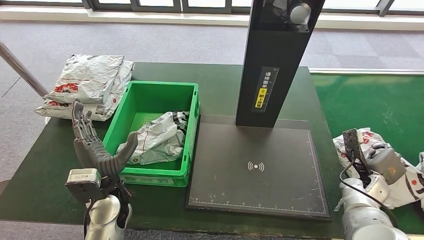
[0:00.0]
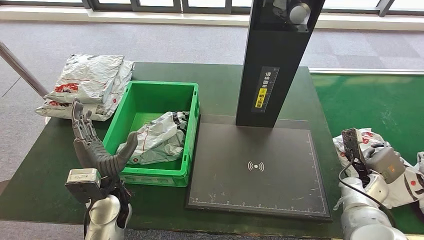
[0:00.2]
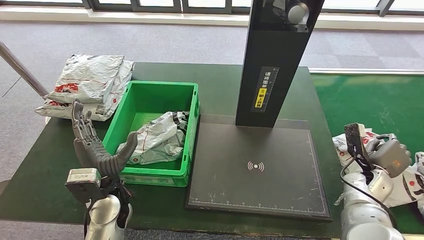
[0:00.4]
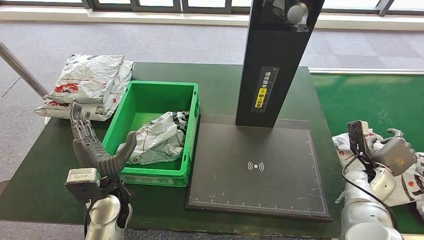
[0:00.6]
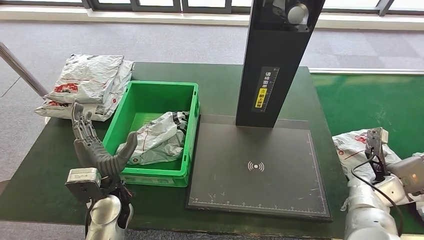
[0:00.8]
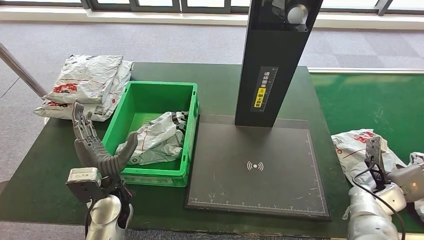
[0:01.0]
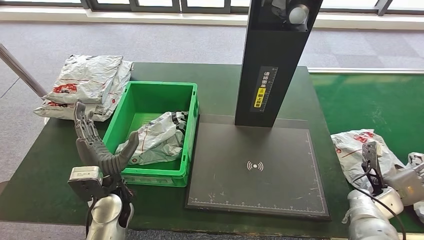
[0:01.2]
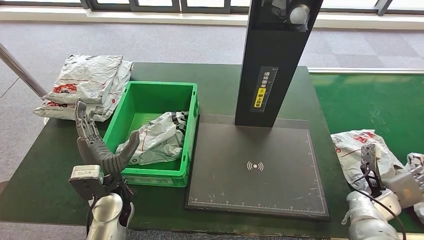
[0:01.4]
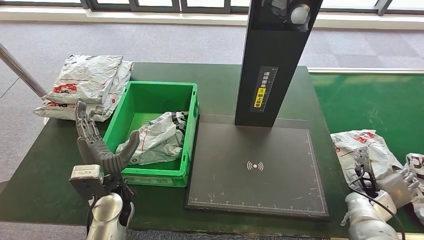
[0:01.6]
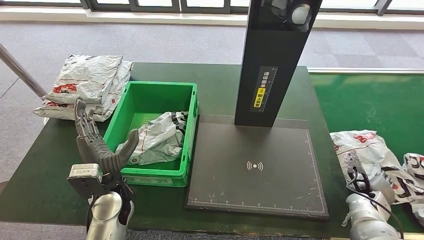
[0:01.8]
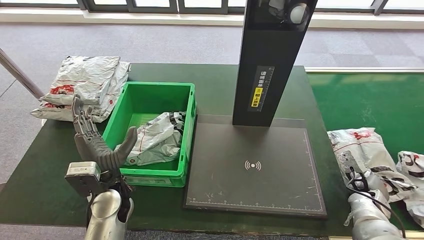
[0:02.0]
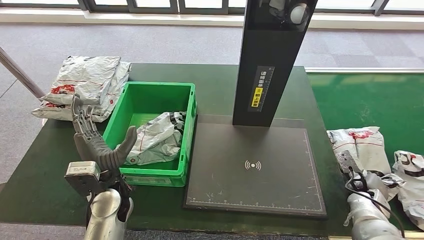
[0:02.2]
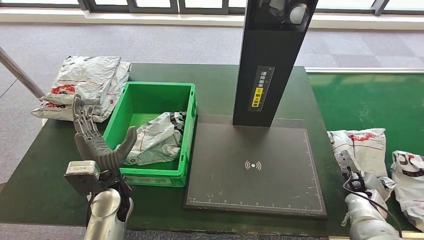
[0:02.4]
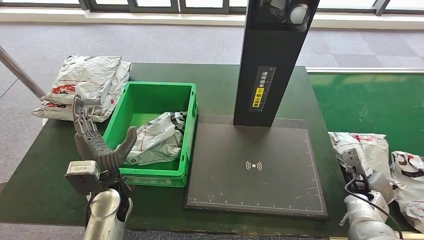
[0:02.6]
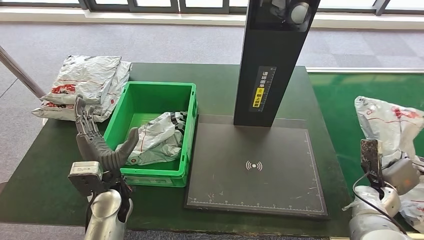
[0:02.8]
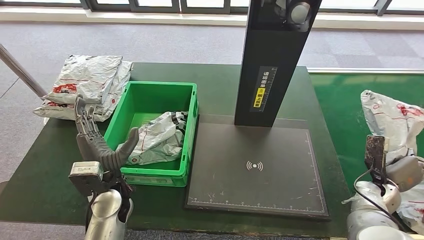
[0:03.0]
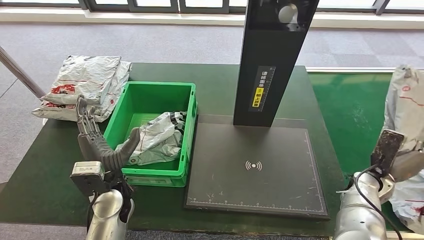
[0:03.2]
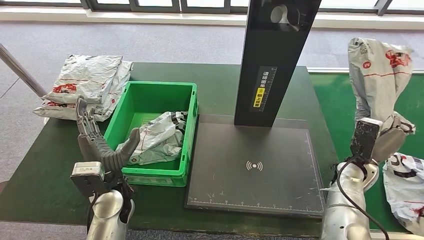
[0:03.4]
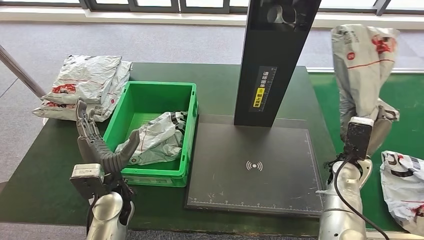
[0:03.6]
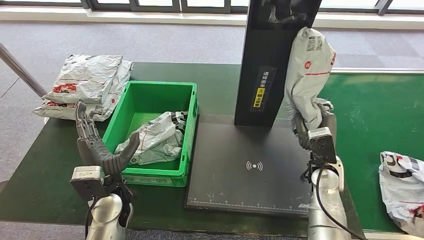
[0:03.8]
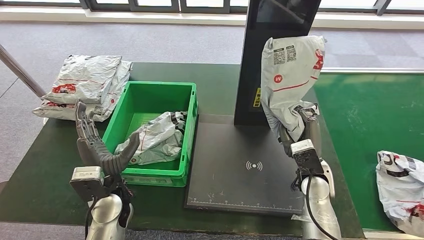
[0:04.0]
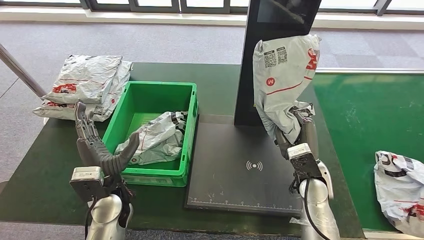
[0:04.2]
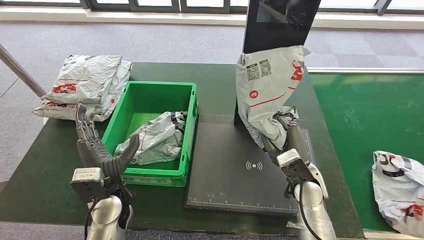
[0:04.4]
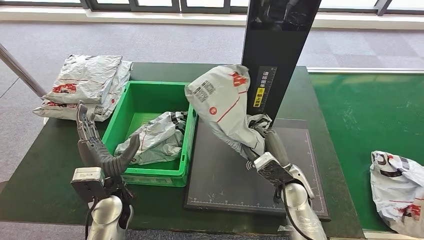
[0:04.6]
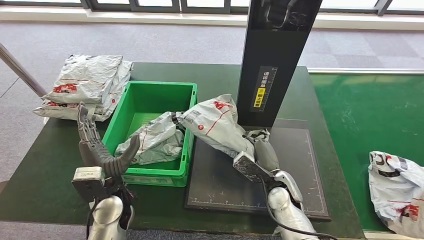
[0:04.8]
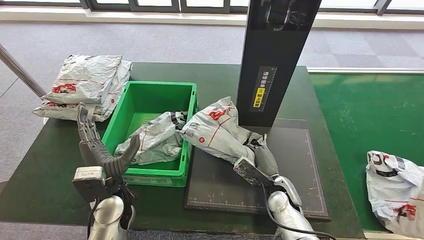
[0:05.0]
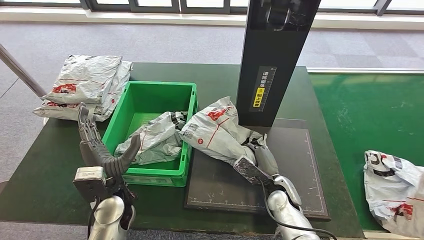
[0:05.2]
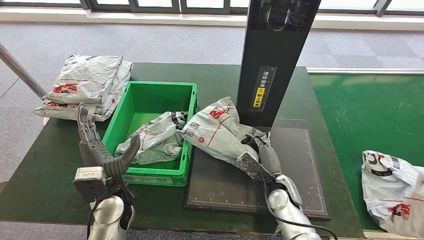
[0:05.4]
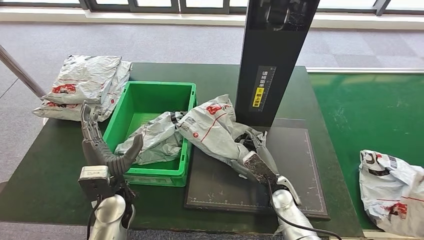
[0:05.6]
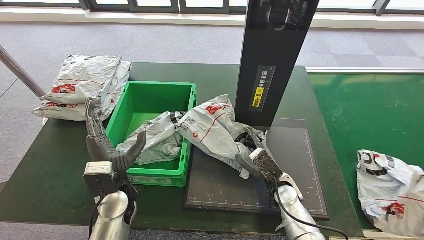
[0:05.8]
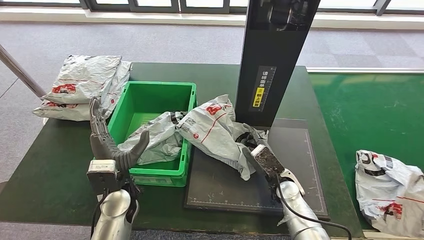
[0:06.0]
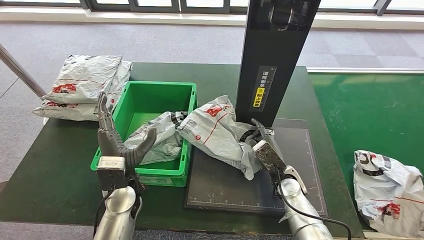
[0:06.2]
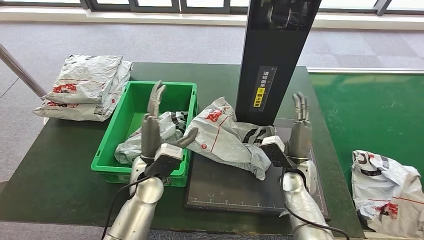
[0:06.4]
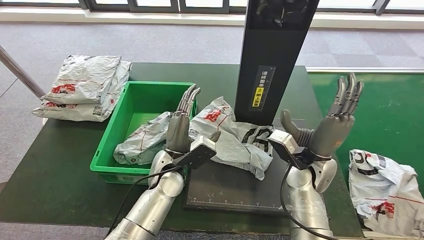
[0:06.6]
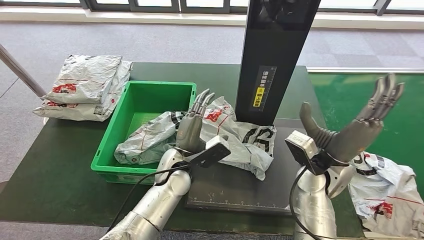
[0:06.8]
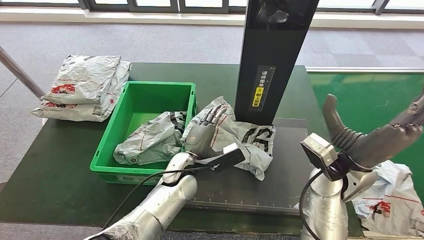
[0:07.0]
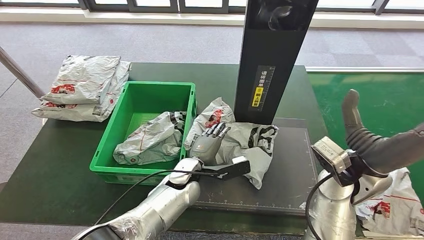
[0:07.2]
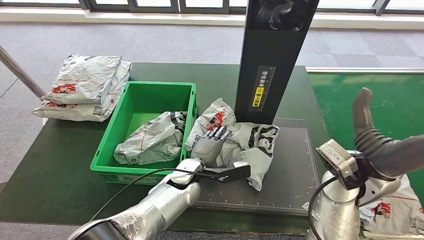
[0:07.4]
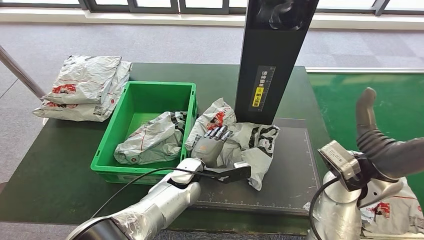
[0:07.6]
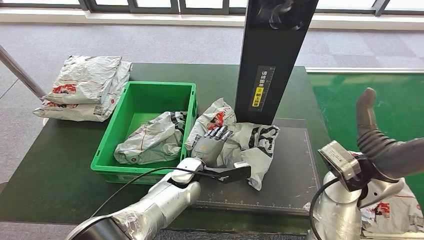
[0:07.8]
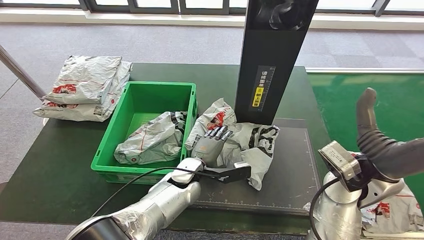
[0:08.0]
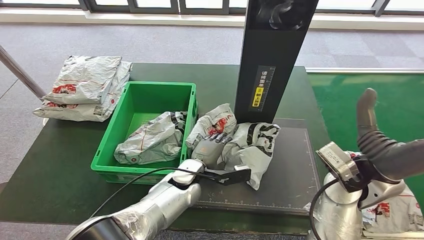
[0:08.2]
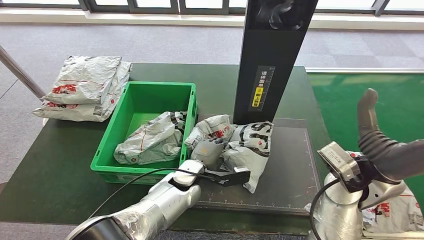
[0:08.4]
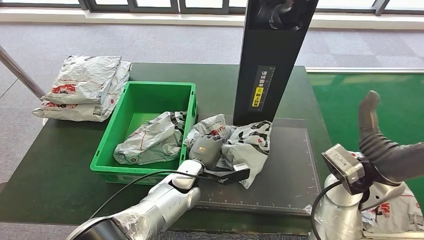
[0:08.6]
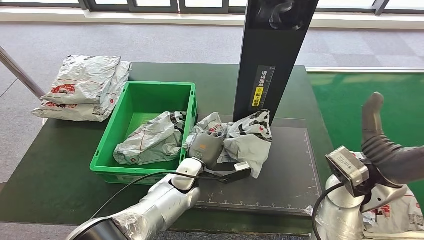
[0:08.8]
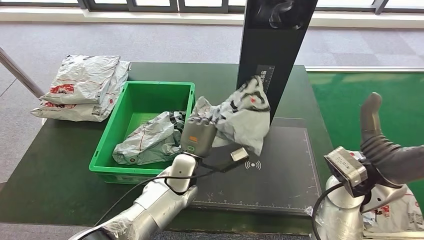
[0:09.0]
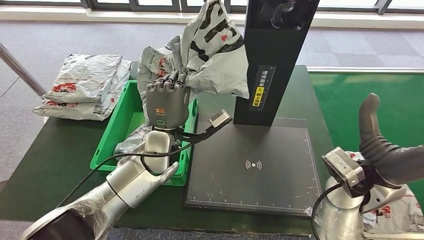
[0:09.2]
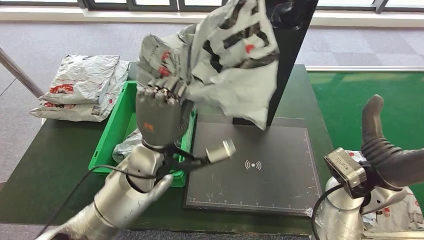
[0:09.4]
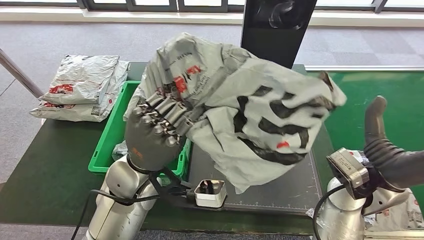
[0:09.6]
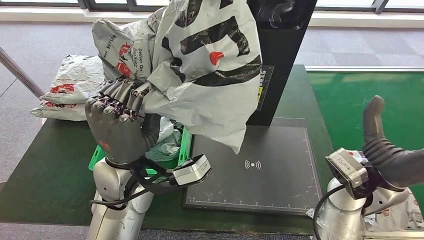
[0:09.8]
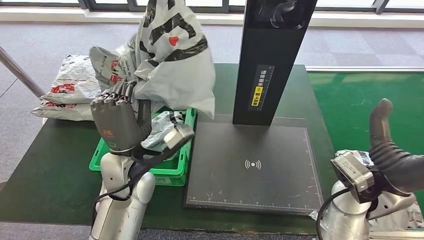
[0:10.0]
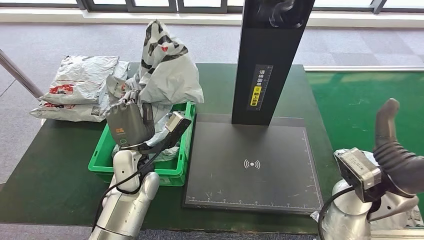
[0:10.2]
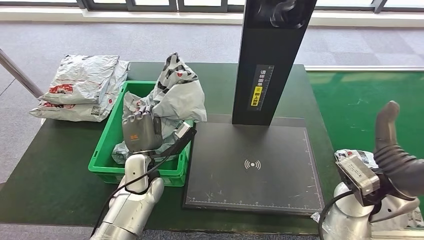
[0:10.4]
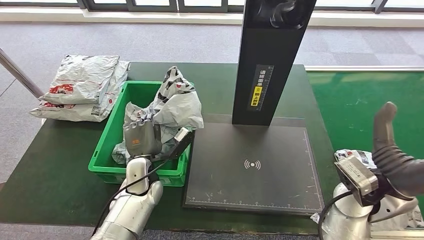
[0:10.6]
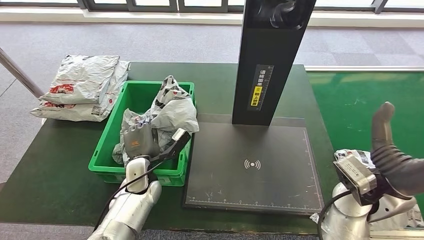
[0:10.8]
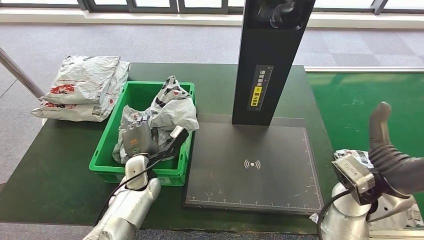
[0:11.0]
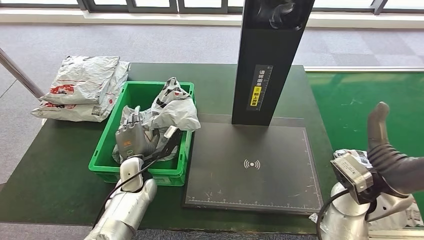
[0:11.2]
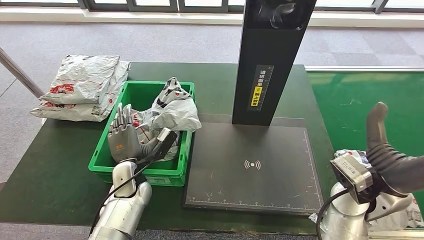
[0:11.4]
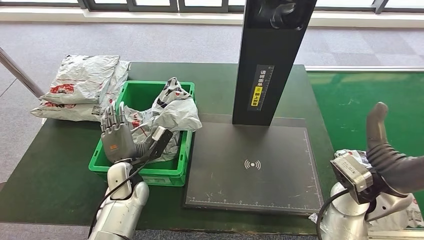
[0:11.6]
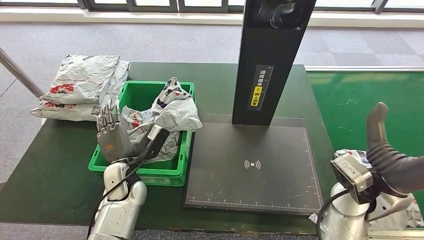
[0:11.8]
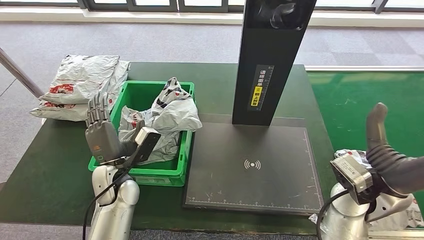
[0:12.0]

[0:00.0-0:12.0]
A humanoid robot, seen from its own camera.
Step, 0:00.0 to 0:03.2: Pick up the parcel from the conveyor belt.
Step, 0:03.4 to 0:06.0: Place the parcel onto the inbound machine.
Step, 0:06.2 to 0:09.4: Pick up the parcel from the inbound machine.
0:00.0 to 0:01.6: The hands move only a little.
0:10.4 to 0:12.0: The left hand heads to the left, covering about 5 cm.

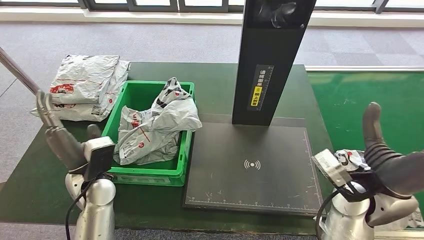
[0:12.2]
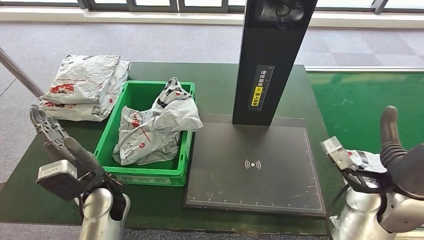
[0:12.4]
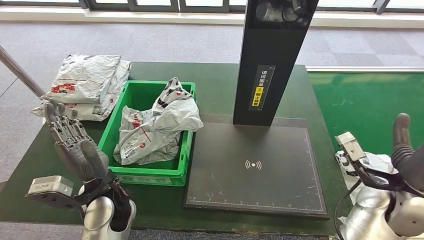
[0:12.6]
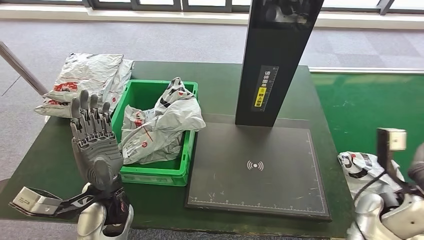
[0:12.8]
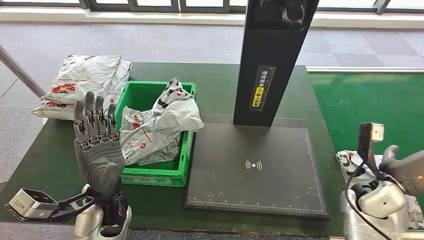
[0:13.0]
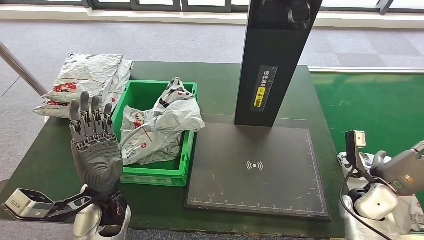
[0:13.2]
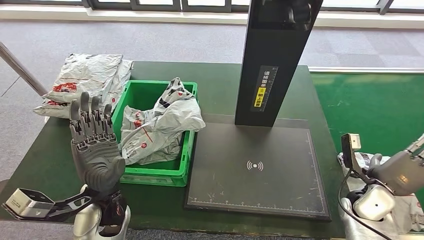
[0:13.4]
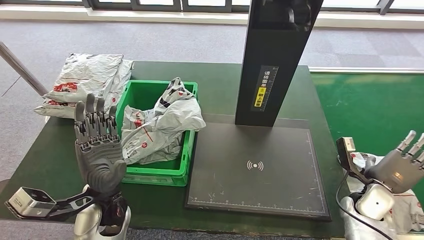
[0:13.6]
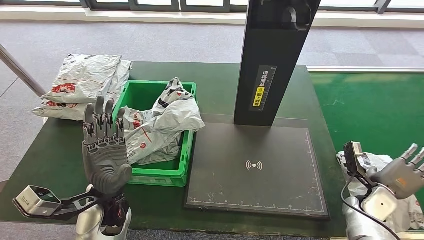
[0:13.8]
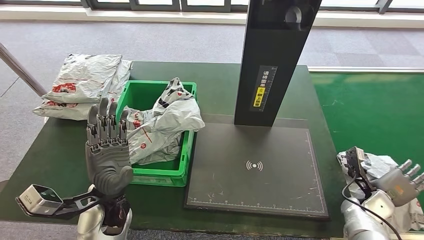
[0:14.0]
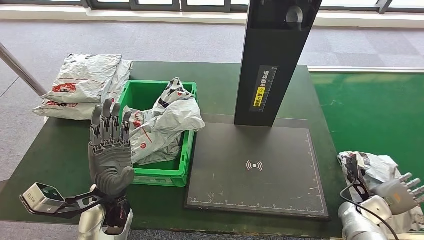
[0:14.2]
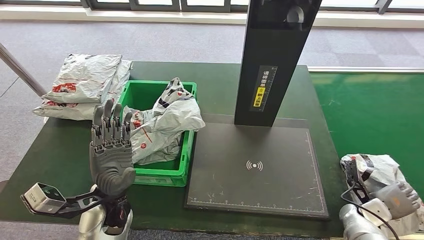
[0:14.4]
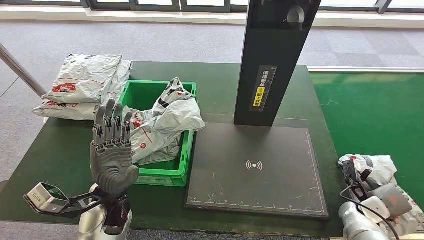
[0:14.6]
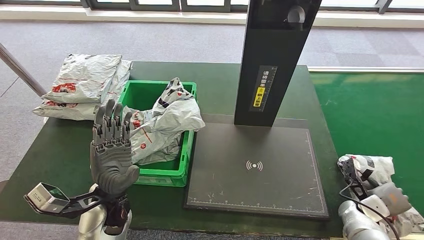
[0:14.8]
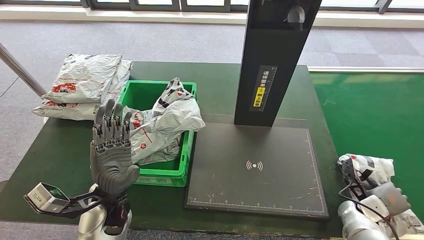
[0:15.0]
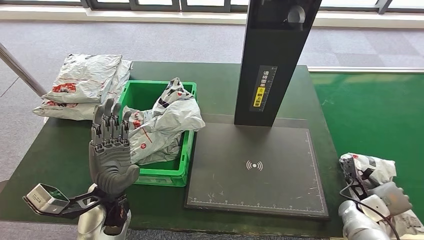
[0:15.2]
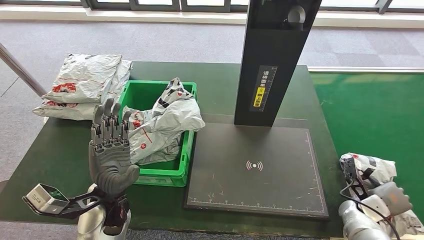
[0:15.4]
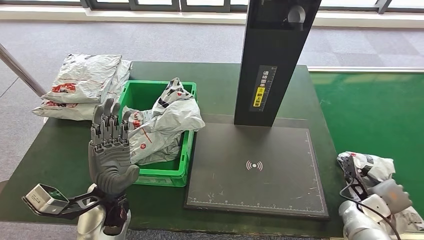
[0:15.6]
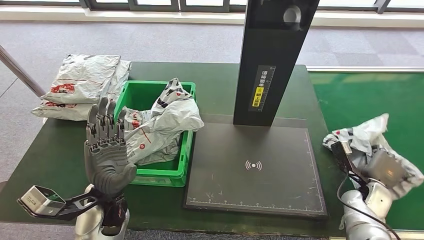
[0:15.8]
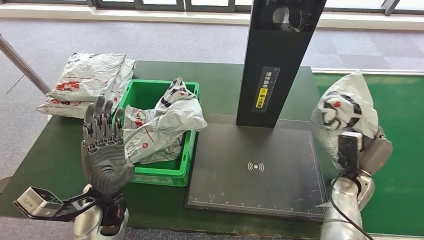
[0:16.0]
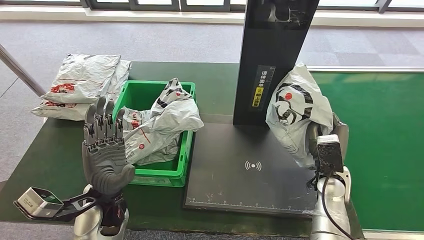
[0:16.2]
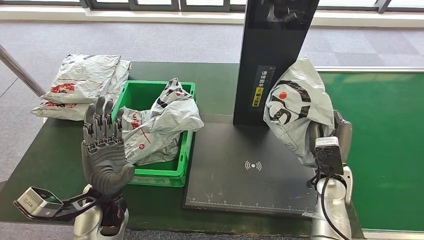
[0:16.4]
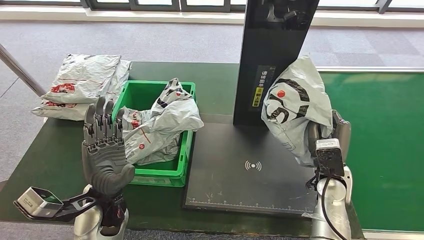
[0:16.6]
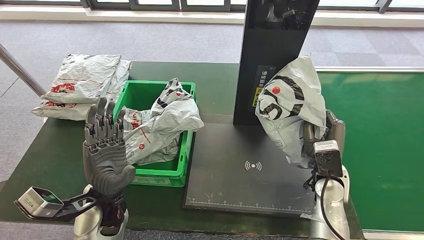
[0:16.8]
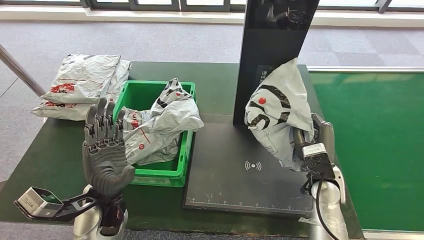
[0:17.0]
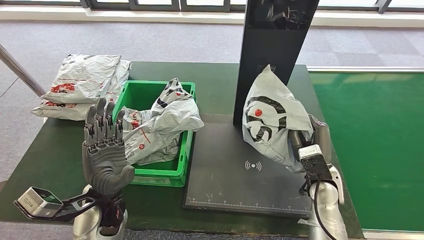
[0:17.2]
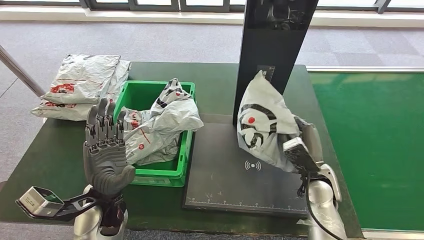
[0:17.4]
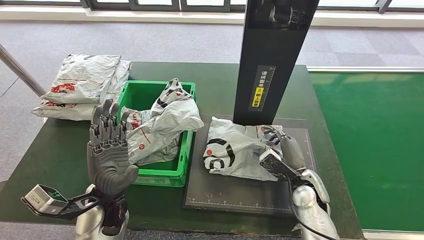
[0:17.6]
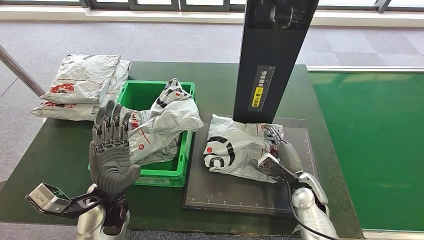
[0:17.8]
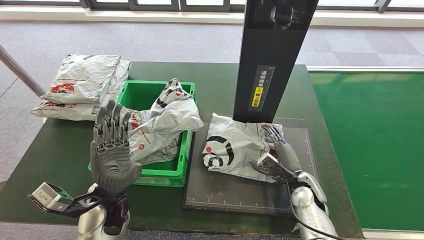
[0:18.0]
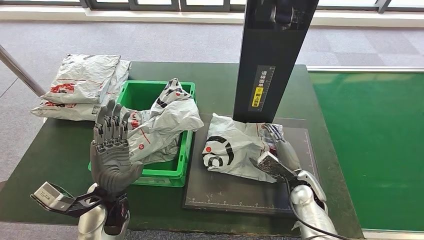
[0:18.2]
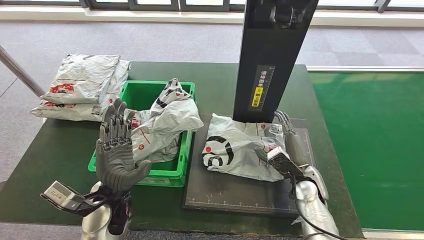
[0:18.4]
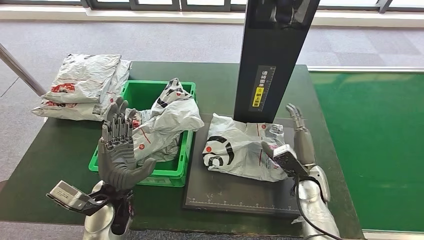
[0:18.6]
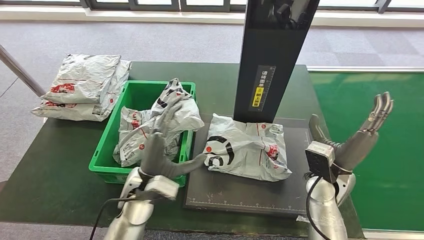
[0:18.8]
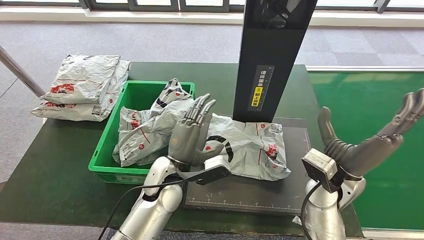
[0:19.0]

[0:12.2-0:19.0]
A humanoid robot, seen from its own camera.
Step, 0:12.4 to 0:16.0: Pick up the parcel from the conveyor belt.
Step, 0:16.4 to 0:18.4: Place the parcel onto the inbound machine.
0:13.6 to 0:15.0: The right hand travels downward by some 5 cm.
0:16.2 to 0:17.6: The right hand goes some 5 cm to the left.
